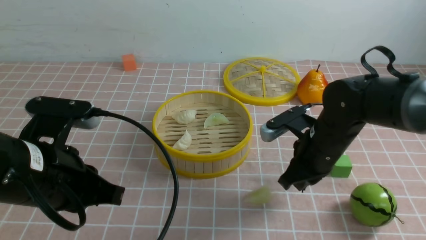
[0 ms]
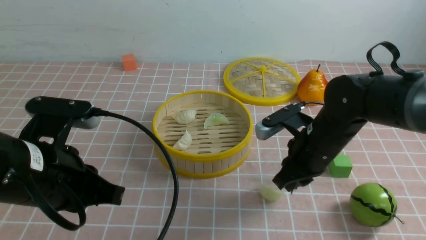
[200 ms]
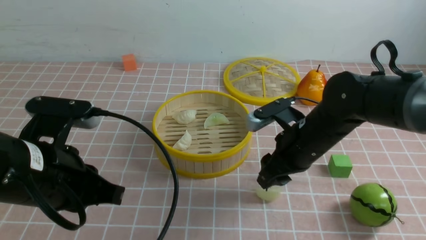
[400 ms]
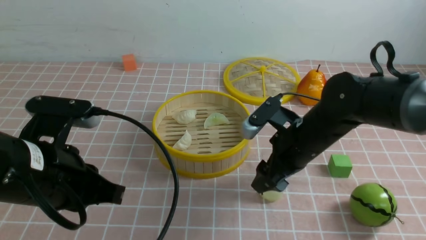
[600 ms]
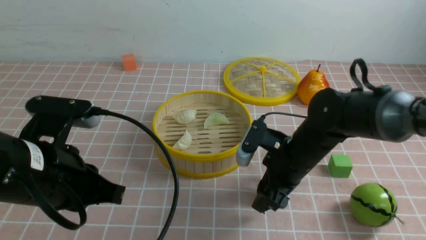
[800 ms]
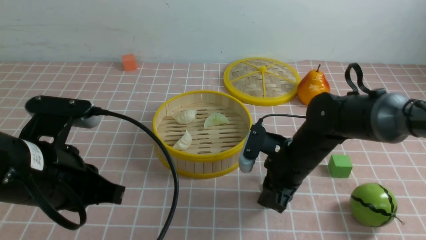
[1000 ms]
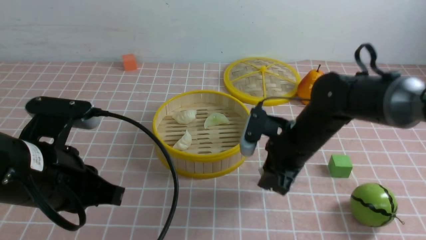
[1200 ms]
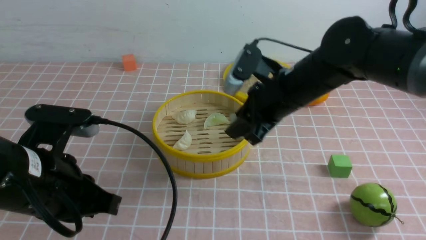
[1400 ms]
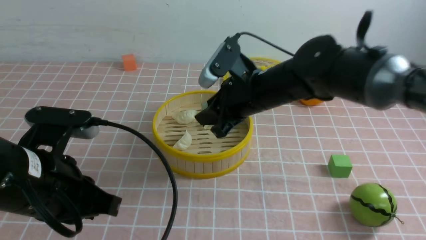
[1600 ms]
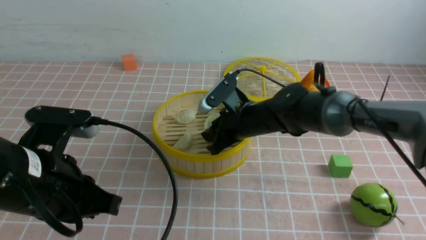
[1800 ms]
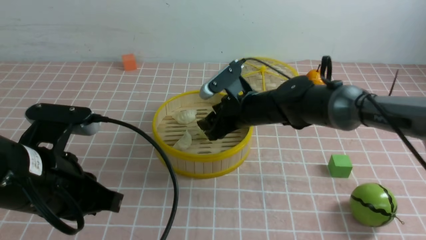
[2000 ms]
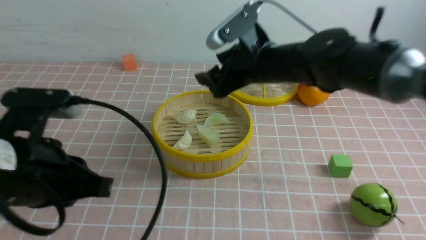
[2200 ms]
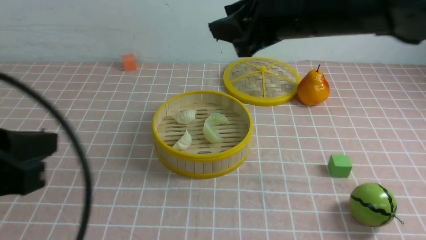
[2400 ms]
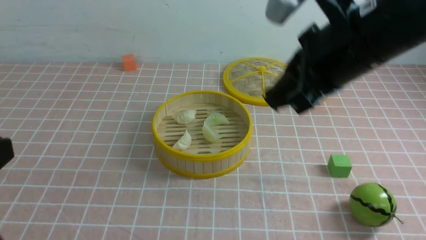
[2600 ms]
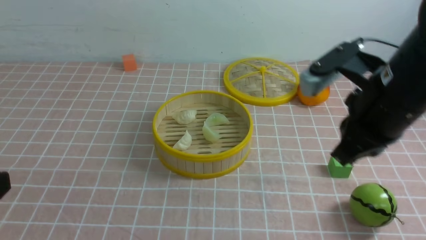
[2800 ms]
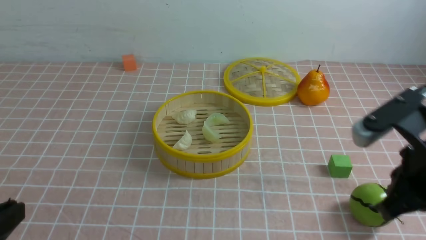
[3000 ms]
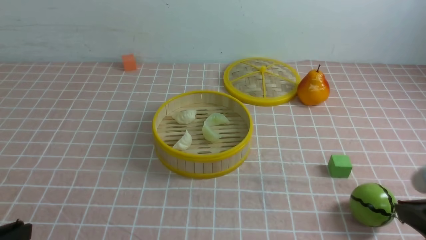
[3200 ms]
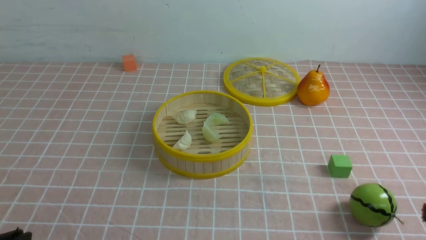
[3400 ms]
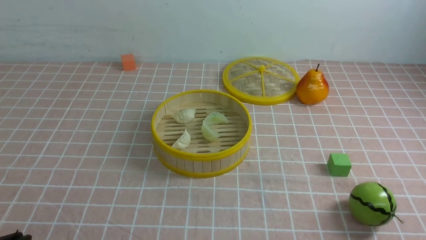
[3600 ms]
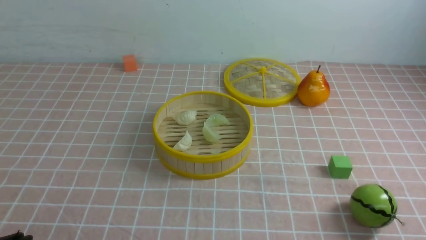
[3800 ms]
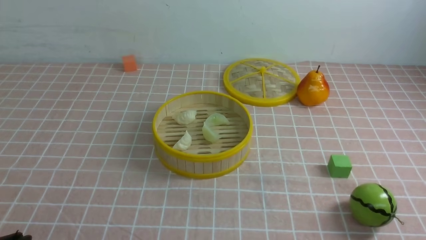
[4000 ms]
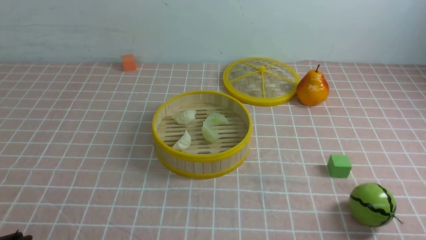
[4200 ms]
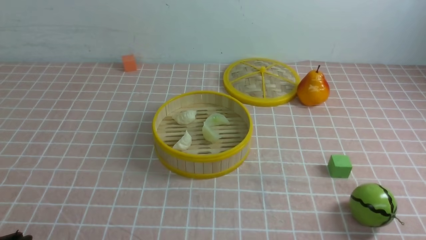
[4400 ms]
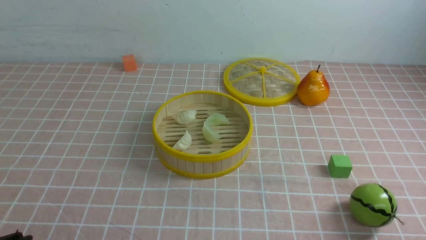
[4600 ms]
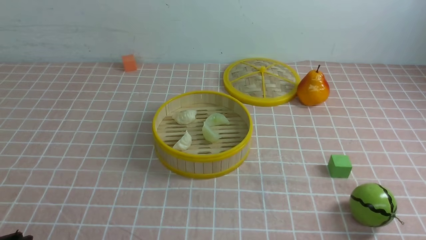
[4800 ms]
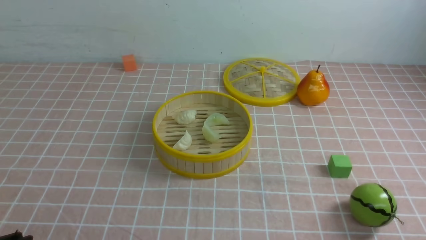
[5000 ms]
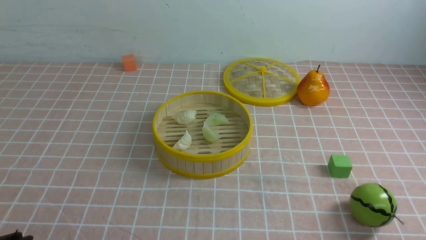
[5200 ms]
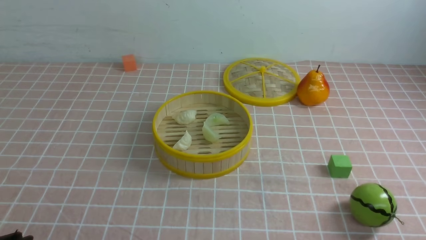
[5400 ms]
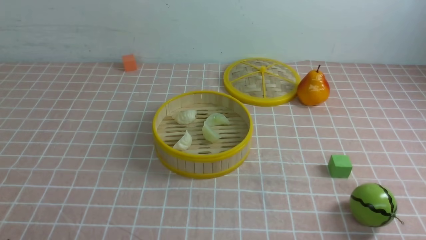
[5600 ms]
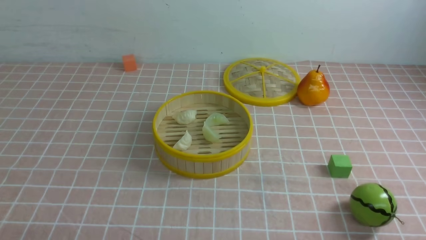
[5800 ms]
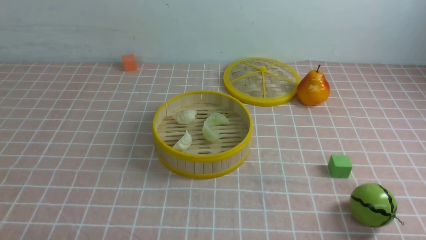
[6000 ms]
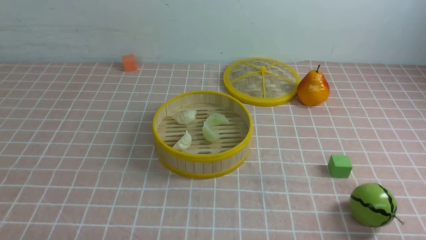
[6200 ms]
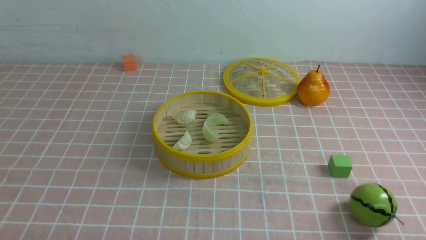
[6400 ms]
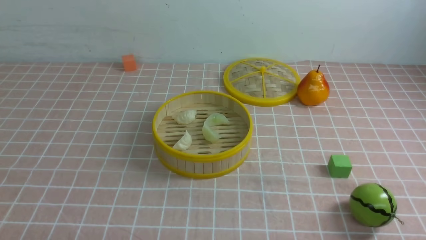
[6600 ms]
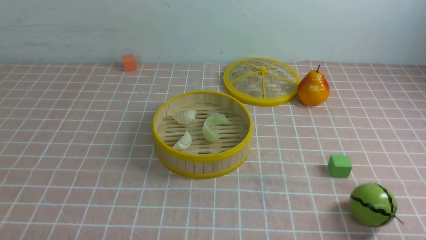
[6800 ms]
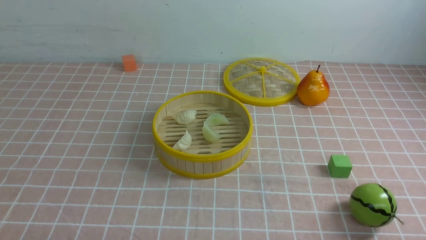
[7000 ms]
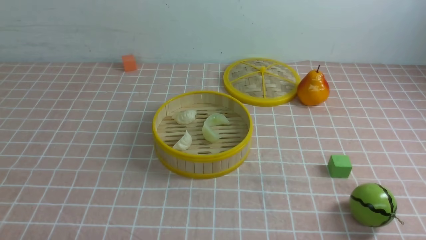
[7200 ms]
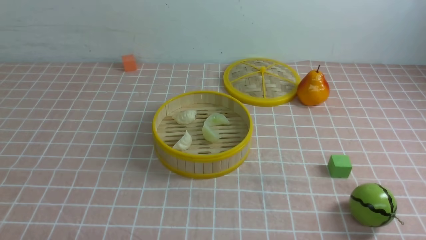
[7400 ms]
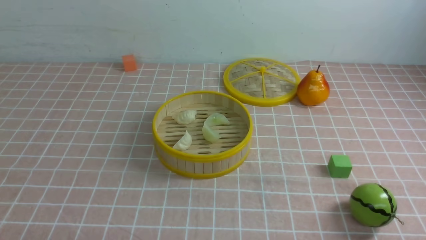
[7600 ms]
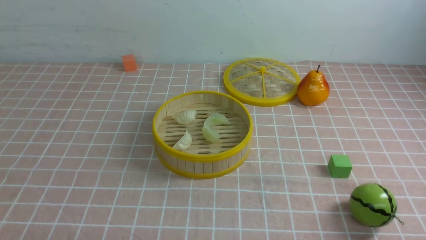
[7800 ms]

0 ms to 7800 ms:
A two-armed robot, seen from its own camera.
Task of the whole recording: put the dumplings into the steamer on the table with the pink tablecloth.
Step, 1200 ms to 2000 ms: use the right arm to put the dumpling into the steamer.
0 ms to 1600 ms: The right gripper moves to the left and forward, about 10 cm, and opens its fingers.
1600 ms to 3200 ms: The right gripper is displaced backward and to the right by some 35 cm, and closes its fingers; the left gripper goes some 15 cm backward and to the left.
3200 ms to 4600 ms: The right gripper moves downward and backward, some 10 cm.
6200 ms to 7800 ms: Both grippers stay put.
